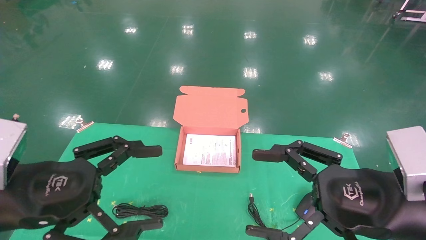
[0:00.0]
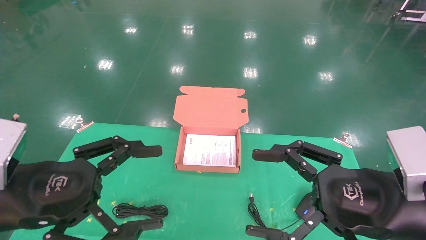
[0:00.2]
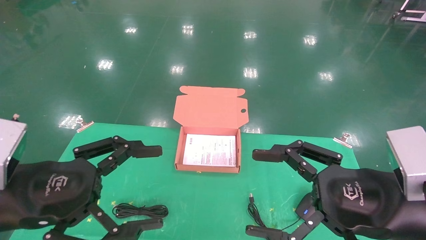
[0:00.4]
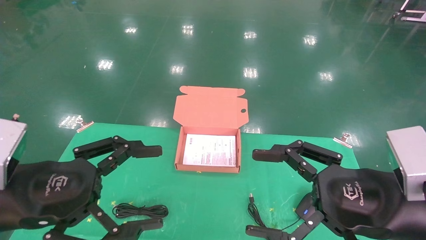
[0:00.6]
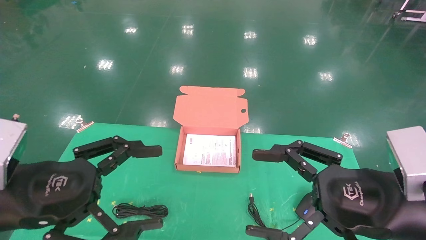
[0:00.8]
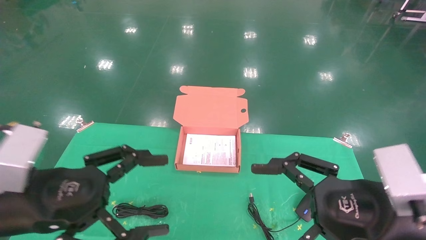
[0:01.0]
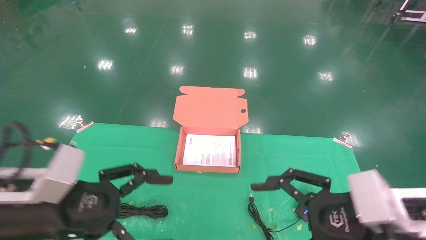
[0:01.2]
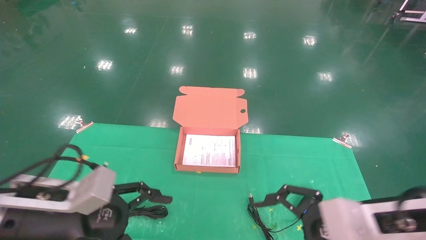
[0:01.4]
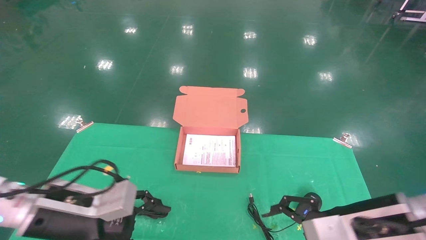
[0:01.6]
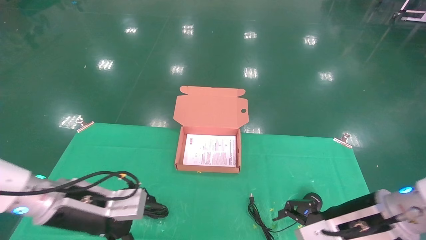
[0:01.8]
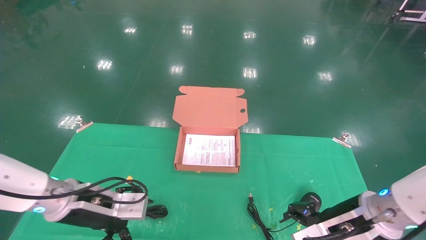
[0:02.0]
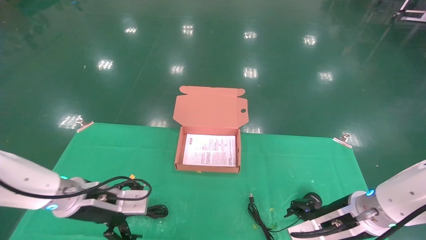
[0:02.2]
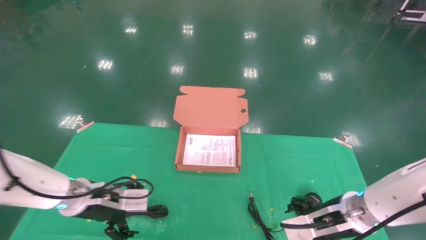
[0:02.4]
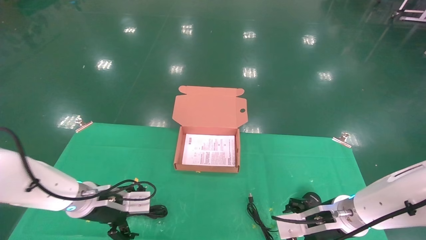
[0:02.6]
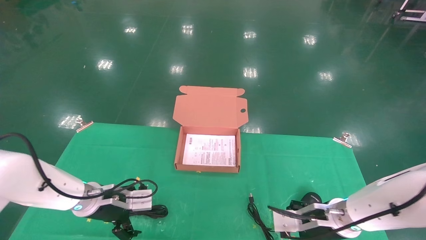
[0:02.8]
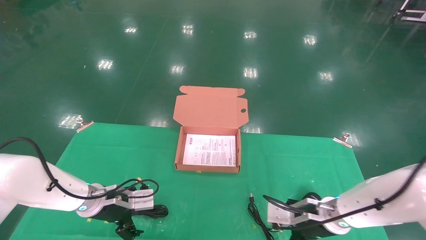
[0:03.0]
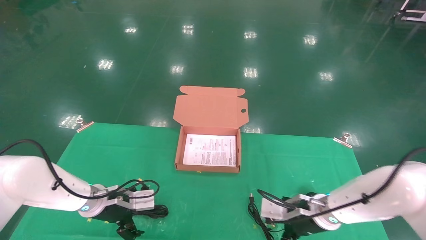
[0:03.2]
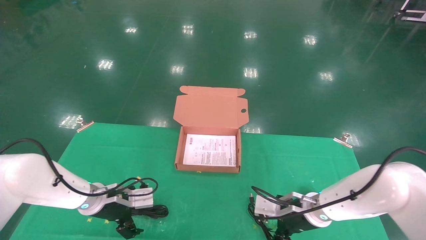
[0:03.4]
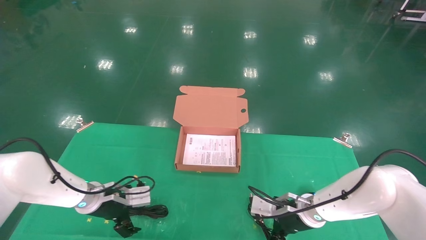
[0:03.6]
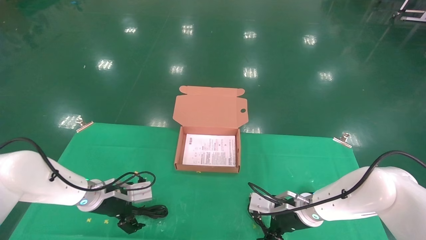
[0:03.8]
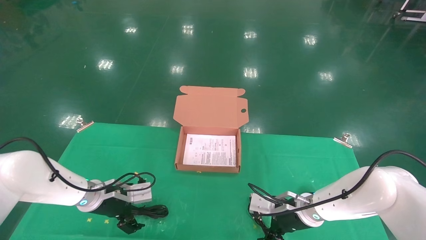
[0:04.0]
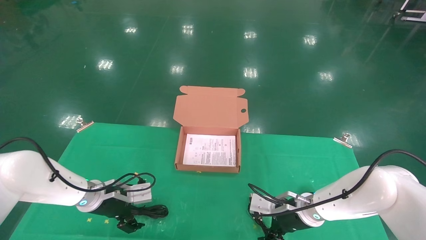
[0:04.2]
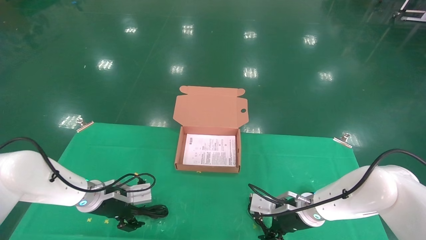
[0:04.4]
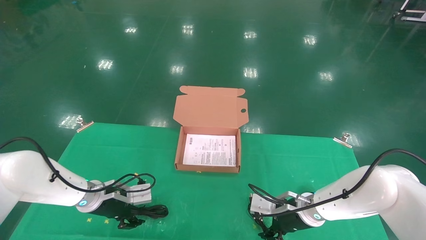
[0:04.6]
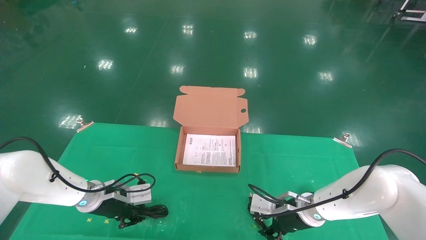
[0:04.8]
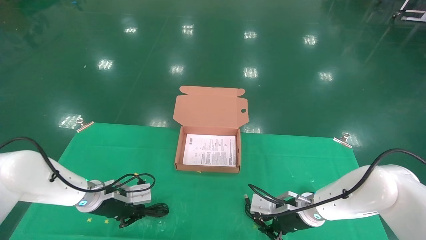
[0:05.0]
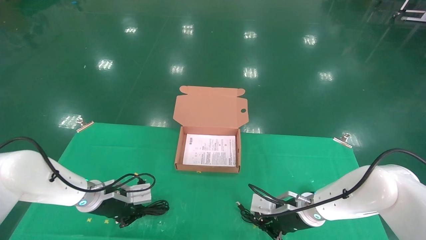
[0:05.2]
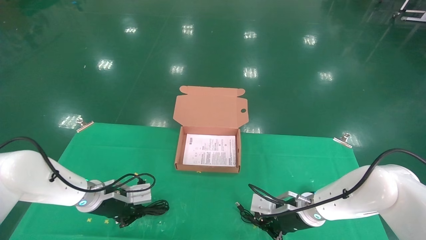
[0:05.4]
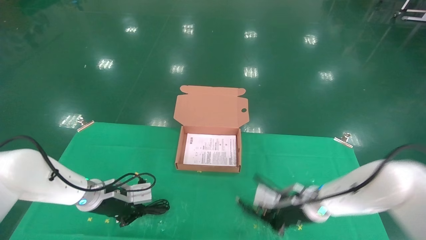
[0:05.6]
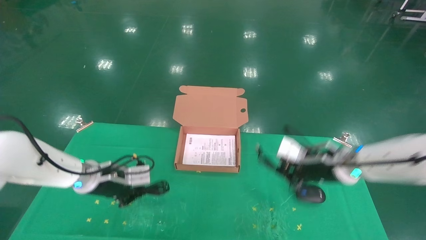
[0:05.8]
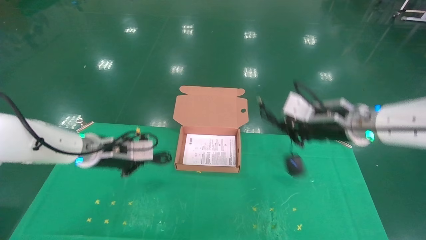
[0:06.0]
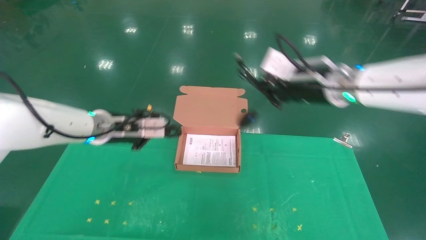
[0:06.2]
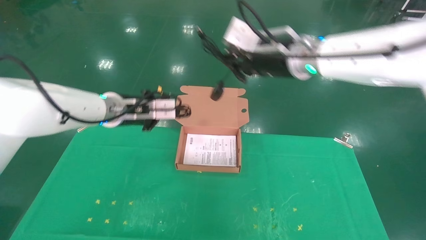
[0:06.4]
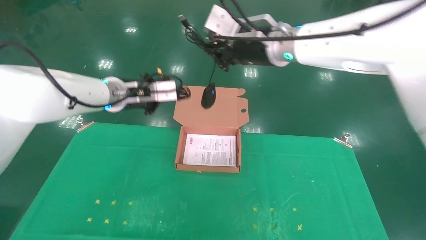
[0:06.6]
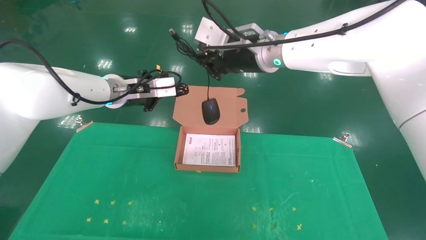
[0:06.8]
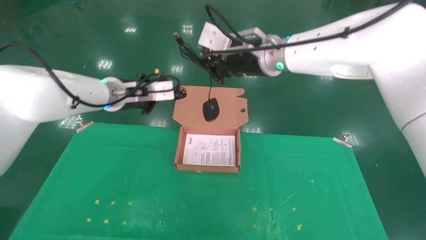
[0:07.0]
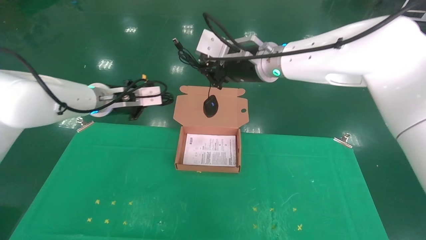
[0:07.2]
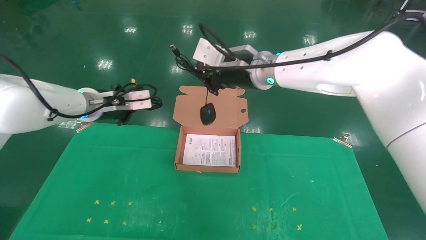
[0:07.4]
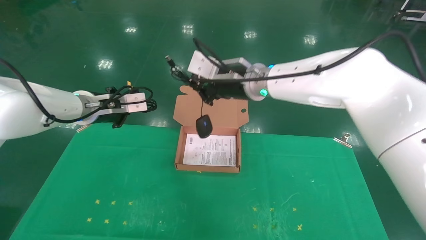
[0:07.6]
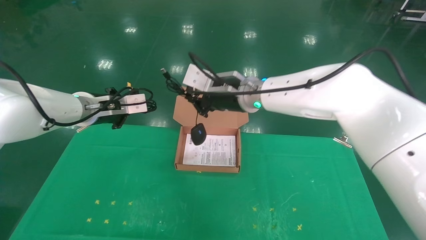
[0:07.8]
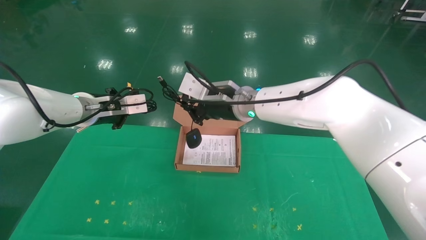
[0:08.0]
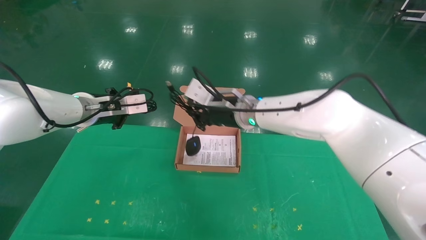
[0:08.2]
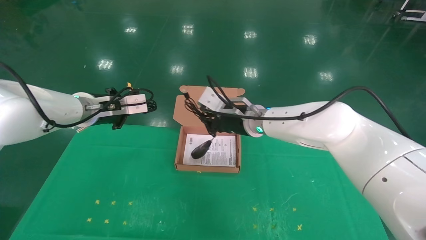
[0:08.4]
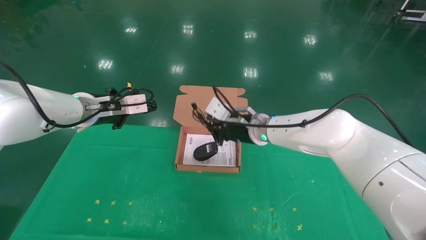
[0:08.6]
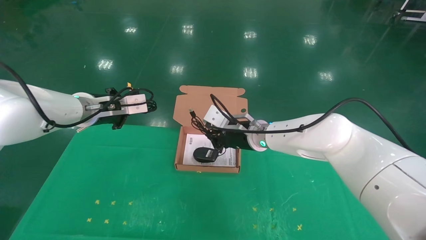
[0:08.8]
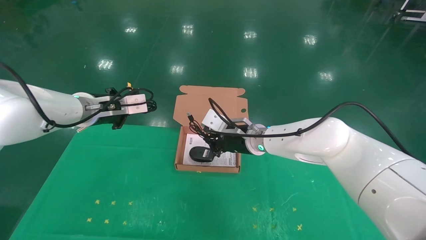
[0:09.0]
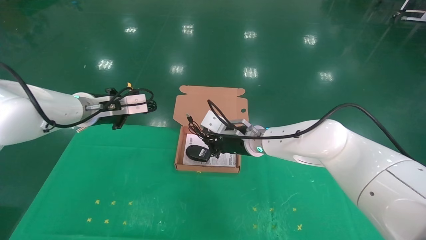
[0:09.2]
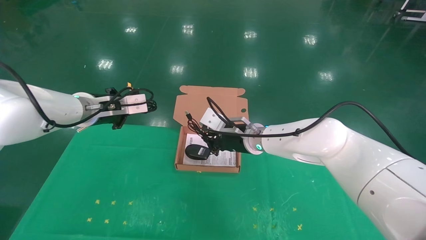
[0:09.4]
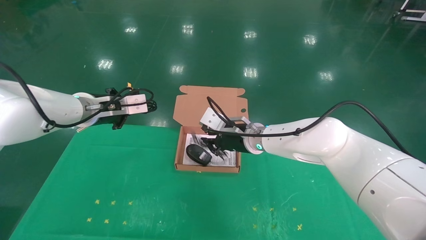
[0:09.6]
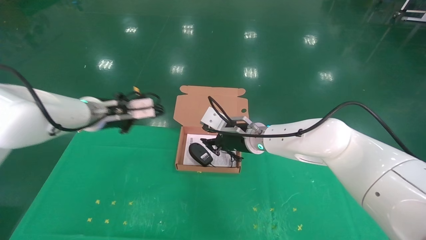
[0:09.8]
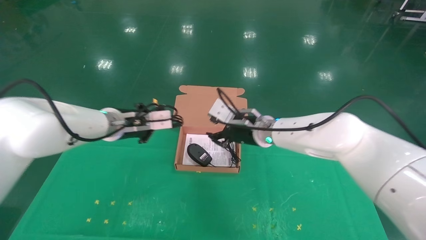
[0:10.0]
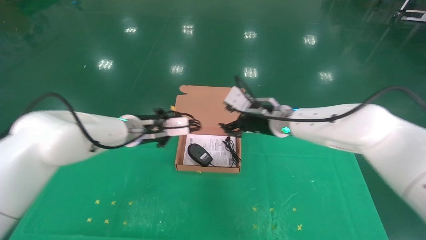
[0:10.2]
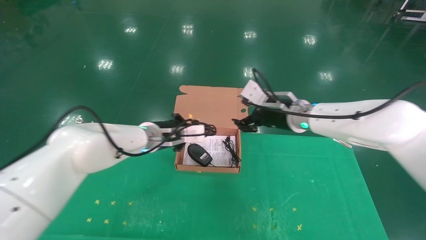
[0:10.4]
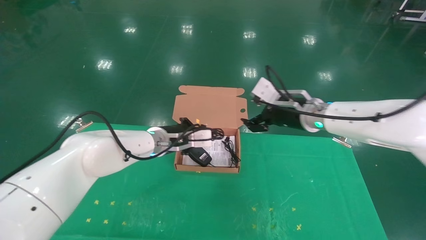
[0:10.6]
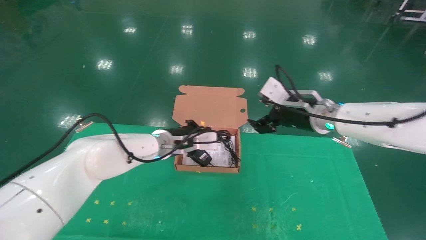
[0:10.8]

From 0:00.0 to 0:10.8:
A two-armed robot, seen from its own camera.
Task of the whole recording: grasp data cable left put into box grasp mouse right put into box.
Step, from 0:00.8 to 0:05.6: Grab and pick up both the mouse and power cord from the accessory packaging area at the same time.
From 0:00.0 to 0:01.6: Both grippers travel together forward and downward, some 10 cm.
From 0:01.6 to 0:03.0: Both grippers move forward and downward, some 15 cm.
From 0:03.0 to 0:04.6: The right gripper changes place by about 5 cm, and closes its fingers; the left gripper closes.
From 0:04.6 to 0:06.2: The left gripper heads upward, covering approximately 20 cm, and closes up. Meanwhile the right gripper goes approximately 30 cm upward, and closes its fingers.
From 0:06.2 to 0:07.8: The right gripper moves to the left, about 15 cm.
From 0:07.8 to 0:09.2: The right gripper goes approximately 10 cm downward.
From 0:09.2 to 0:10.8: The right gripper heads to the right and upward, covering some 15 cm, and opens, while the left gripper travels to the right and downward by approximately 20 cm.

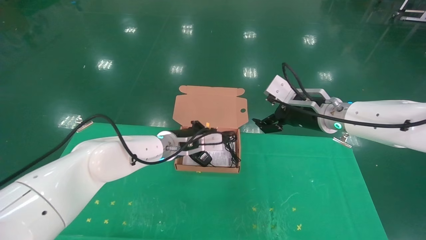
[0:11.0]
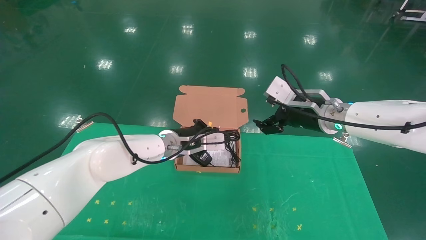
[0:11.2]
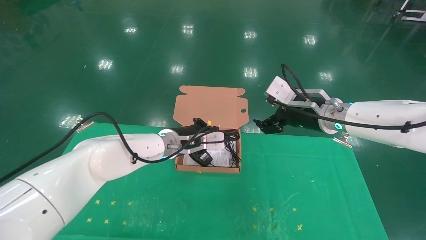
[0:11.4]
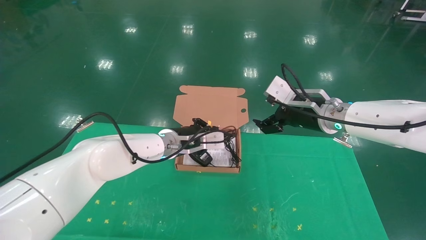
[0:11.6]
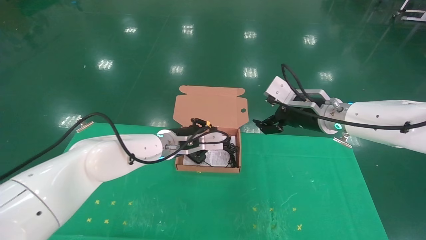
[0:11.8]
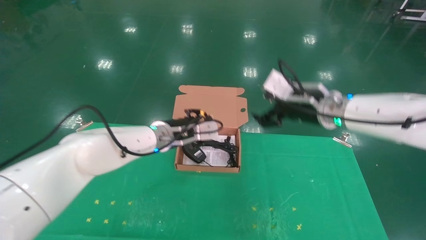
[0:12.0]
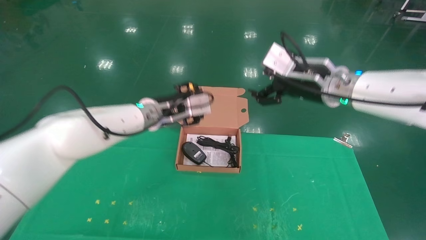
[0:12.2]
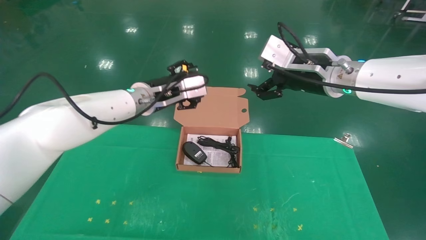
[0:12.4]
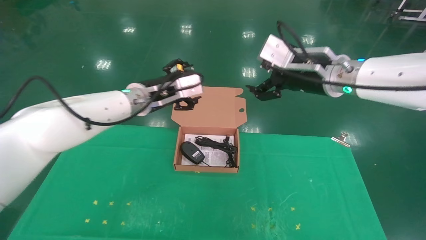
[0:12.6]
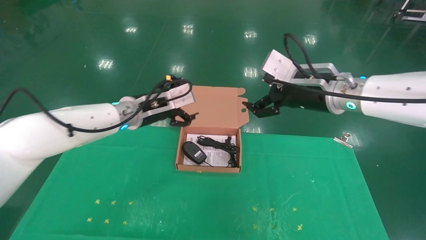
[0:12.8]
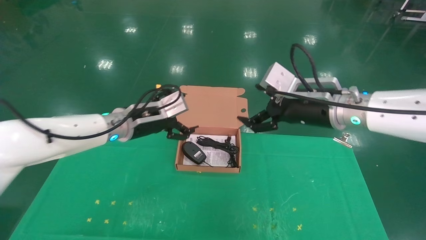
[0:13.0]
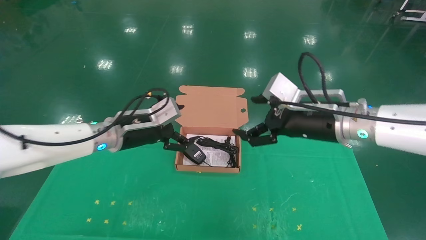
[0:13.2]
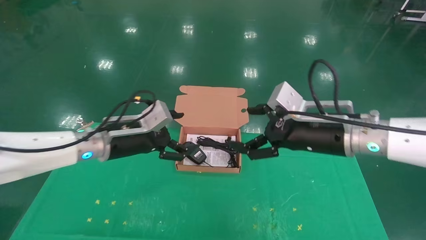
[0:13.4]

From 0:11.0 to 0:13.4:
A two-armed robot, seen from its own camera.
Task of the whole recording: grasp data cable left put into box grasp mouse right put into box.
From 0:11.0 to 0:12.2: Both grippers move upward, some 5 cm. The left gripper opens up.
From 0:12.2 to 0:13.4: The right gripper travels backward and downward by some 10 cm. The left gripper travels to the left and backward by approximately 10 cm, and opens its fingers.

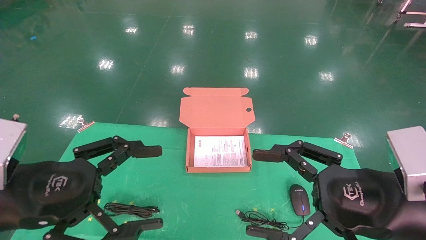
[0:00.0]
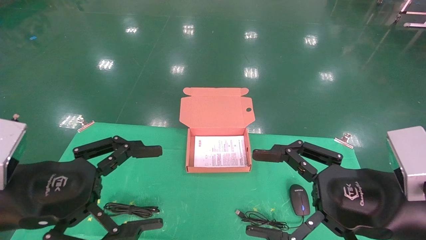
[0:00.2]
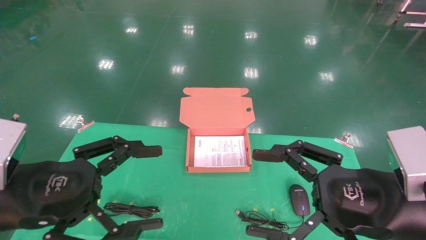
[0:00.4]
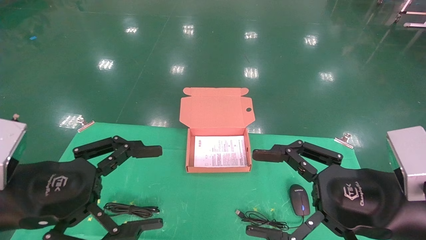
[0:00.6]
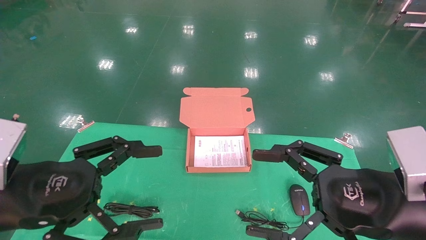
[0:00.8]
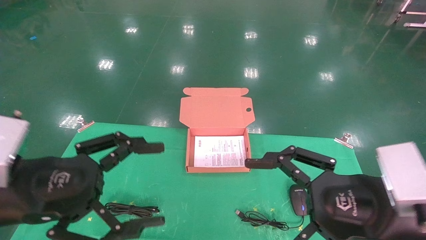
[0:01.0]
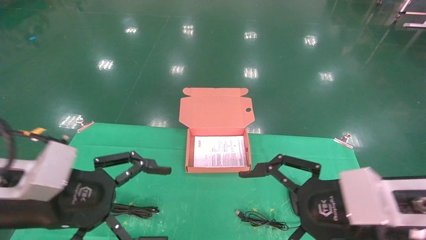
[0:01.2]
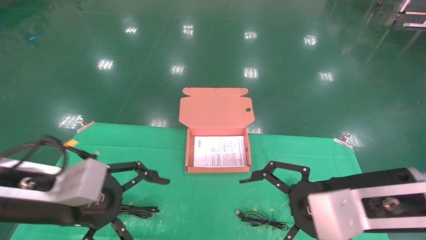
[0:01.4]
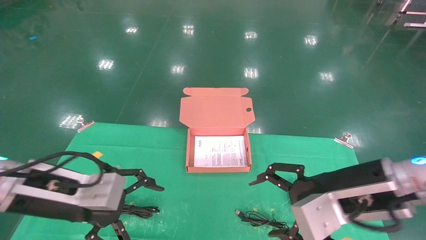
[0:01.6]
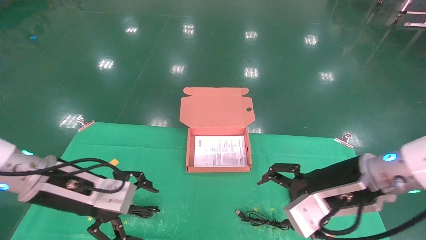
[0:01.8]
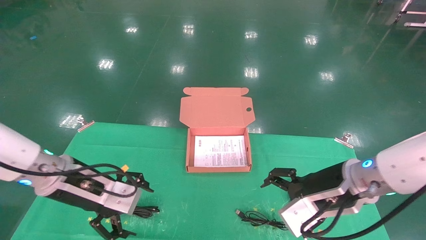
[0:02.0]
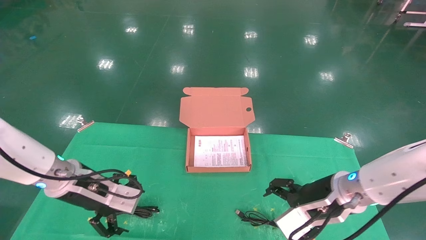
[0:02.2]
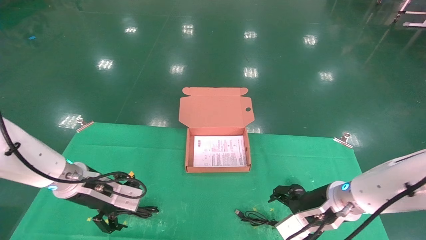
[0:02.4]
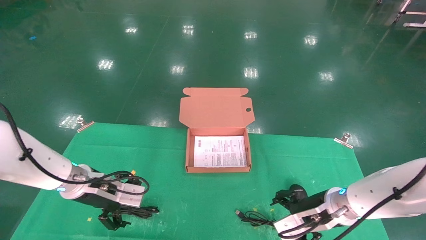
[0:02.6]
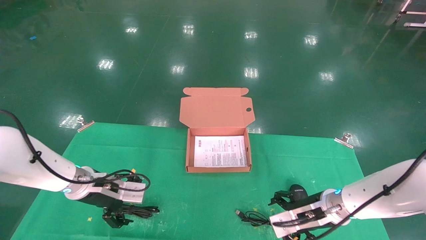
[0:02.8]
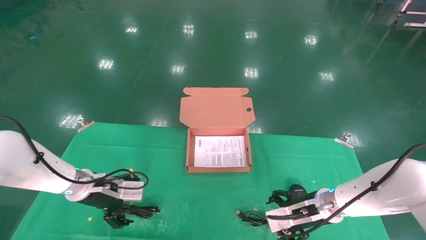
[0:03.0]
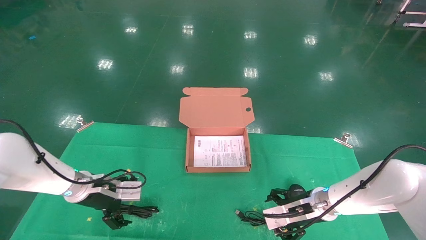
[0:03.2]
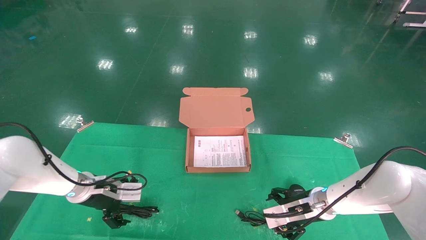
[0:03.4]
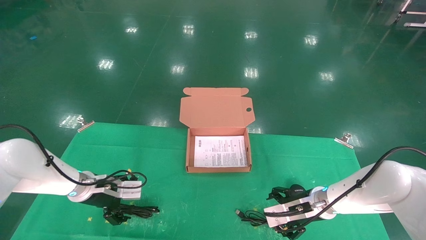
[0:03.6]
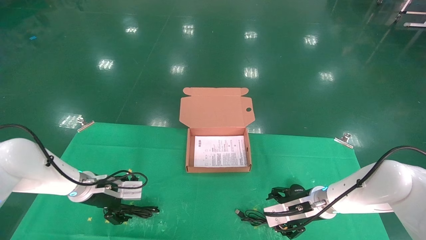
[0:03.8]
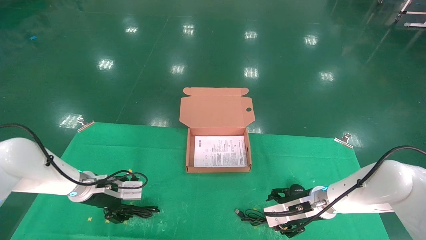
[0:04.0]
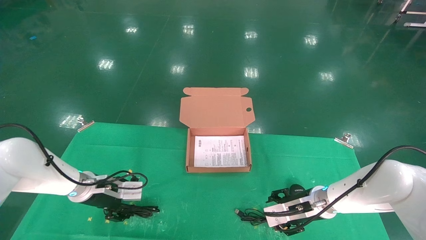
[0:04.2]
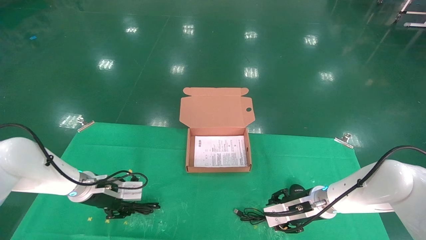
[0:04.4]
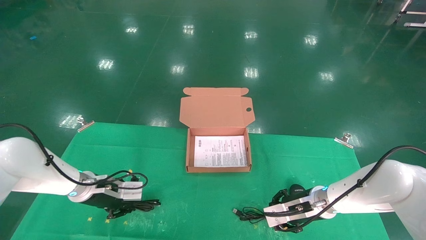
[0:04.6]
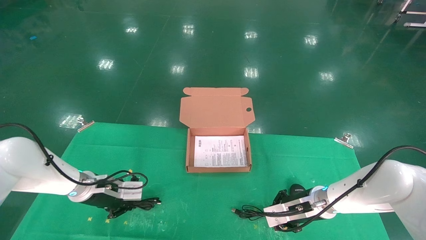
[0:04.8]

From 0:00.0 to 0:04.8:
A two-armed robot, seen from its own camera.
Task of the whole recording: grasp data cable left put into box grasp mouse right put into box.
From 0:00.0 to 0:01.6: The two grippers go approximately 5 cm forward.
From 0:01.6 to 0:03.2: The two grippers go roughly 20 cm forward and downward.
From 0:03.2 to 0:04.8: The right gripper closes its fingers; the left gripper closes up.
